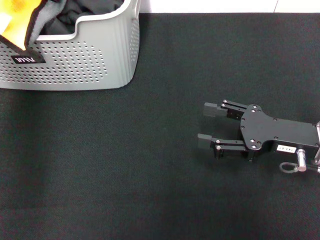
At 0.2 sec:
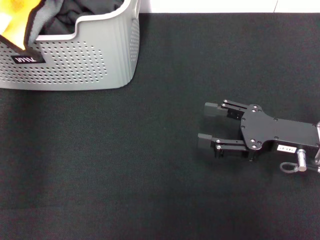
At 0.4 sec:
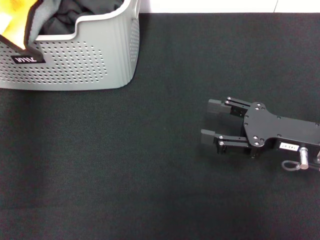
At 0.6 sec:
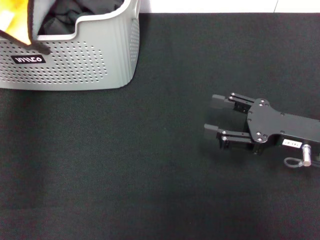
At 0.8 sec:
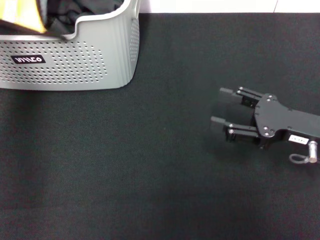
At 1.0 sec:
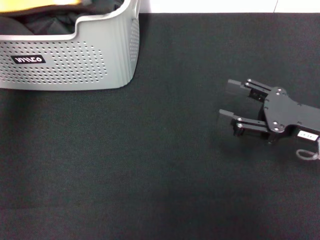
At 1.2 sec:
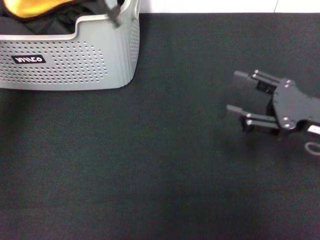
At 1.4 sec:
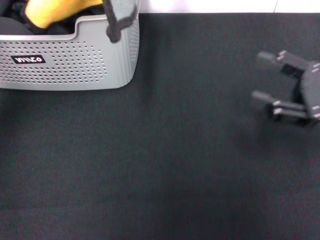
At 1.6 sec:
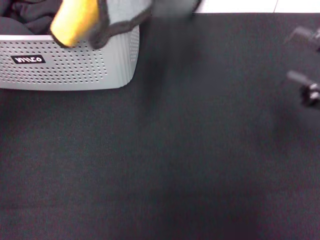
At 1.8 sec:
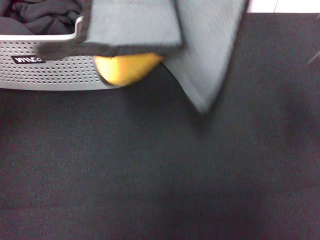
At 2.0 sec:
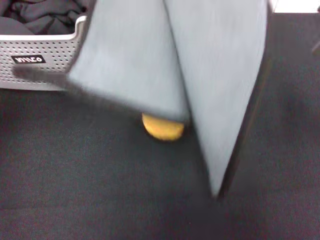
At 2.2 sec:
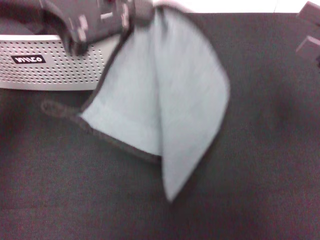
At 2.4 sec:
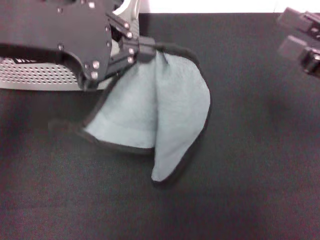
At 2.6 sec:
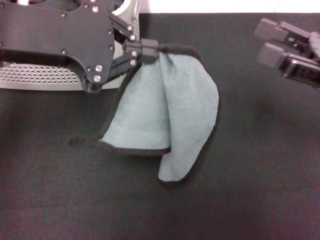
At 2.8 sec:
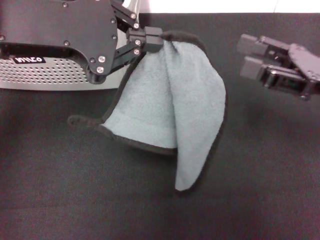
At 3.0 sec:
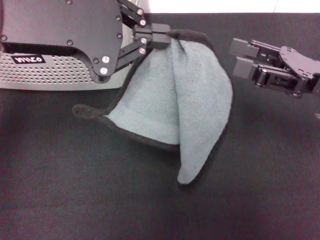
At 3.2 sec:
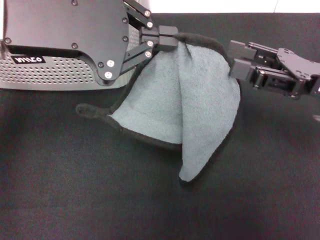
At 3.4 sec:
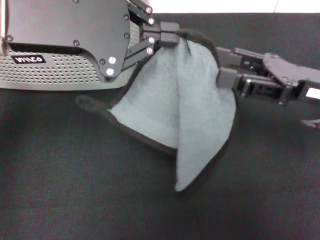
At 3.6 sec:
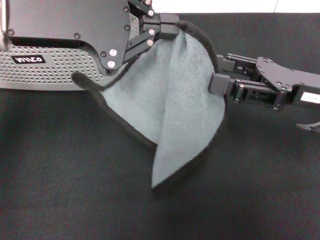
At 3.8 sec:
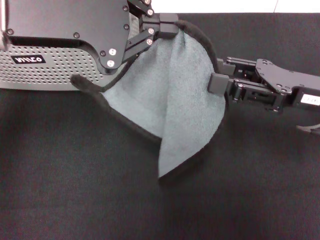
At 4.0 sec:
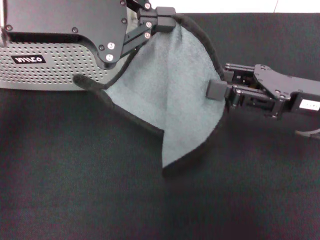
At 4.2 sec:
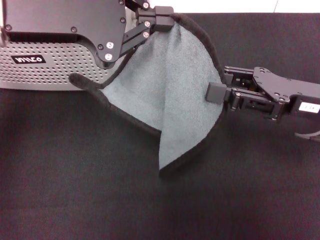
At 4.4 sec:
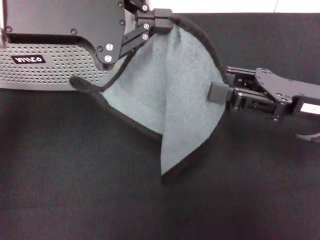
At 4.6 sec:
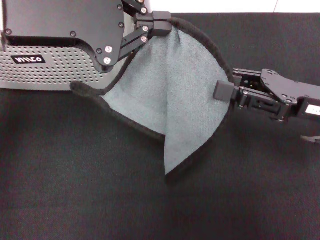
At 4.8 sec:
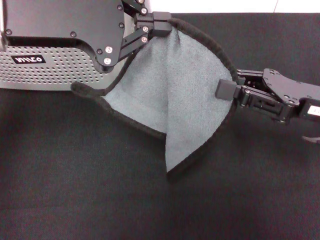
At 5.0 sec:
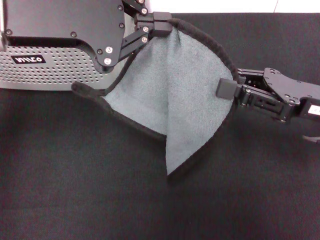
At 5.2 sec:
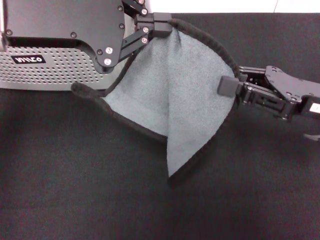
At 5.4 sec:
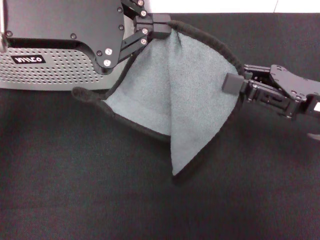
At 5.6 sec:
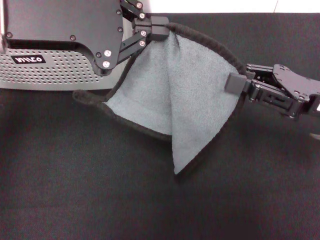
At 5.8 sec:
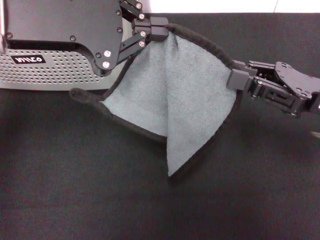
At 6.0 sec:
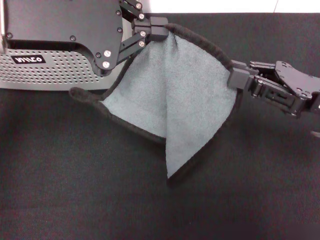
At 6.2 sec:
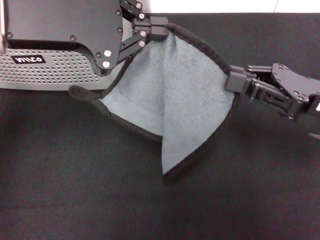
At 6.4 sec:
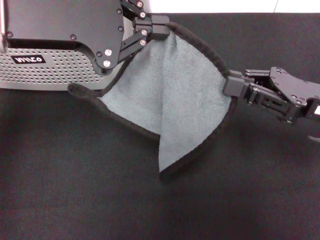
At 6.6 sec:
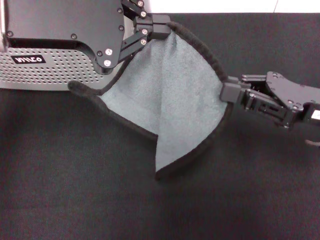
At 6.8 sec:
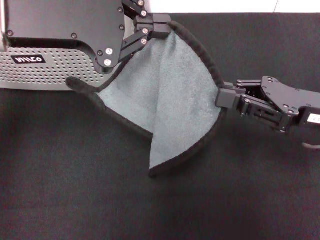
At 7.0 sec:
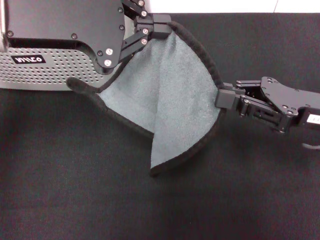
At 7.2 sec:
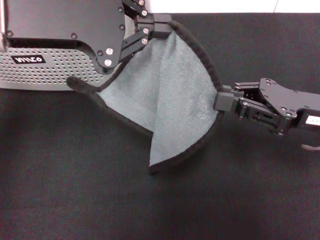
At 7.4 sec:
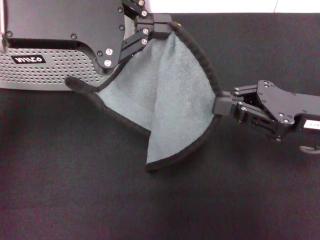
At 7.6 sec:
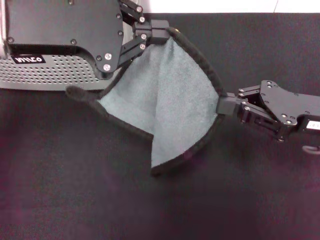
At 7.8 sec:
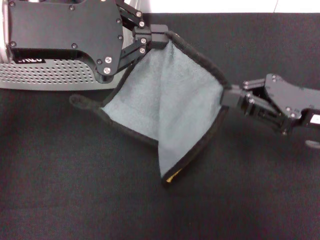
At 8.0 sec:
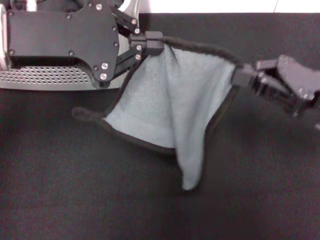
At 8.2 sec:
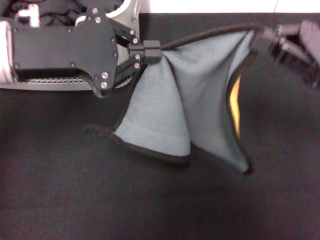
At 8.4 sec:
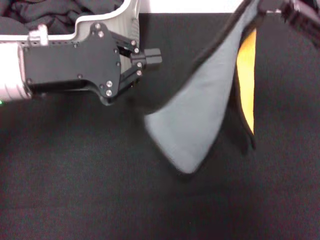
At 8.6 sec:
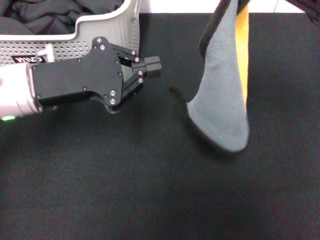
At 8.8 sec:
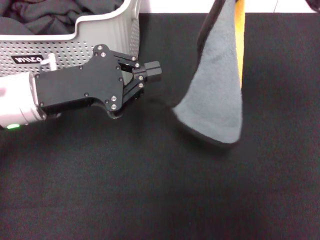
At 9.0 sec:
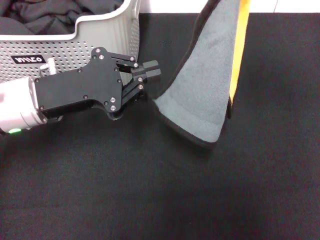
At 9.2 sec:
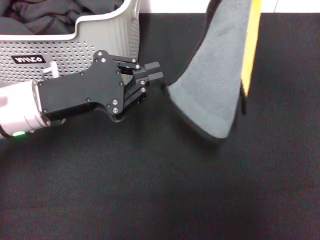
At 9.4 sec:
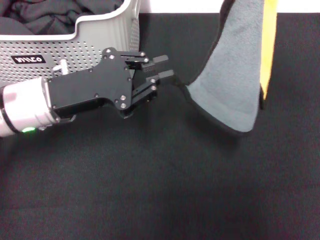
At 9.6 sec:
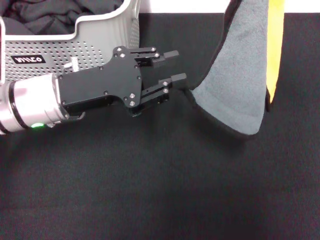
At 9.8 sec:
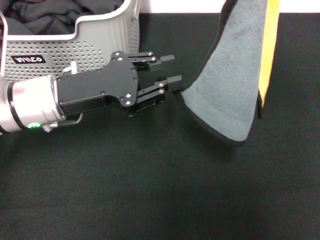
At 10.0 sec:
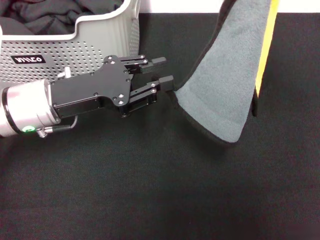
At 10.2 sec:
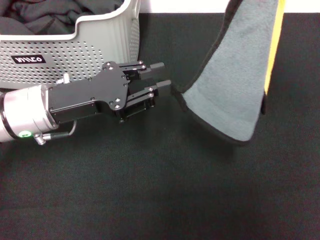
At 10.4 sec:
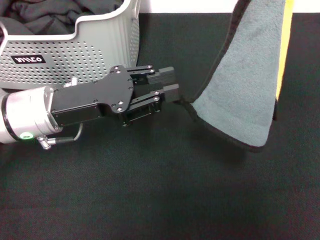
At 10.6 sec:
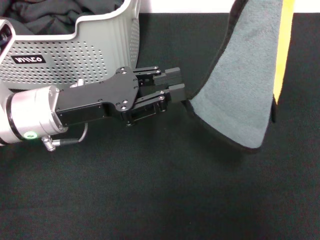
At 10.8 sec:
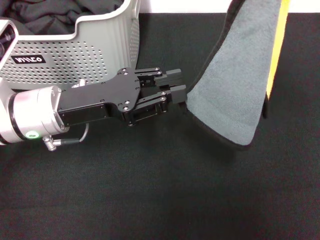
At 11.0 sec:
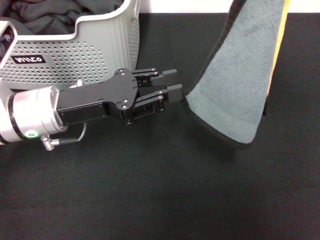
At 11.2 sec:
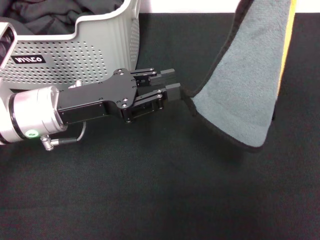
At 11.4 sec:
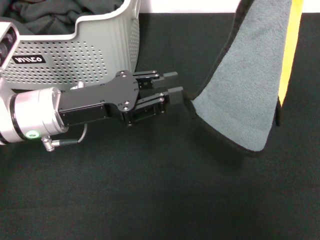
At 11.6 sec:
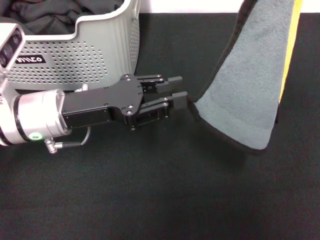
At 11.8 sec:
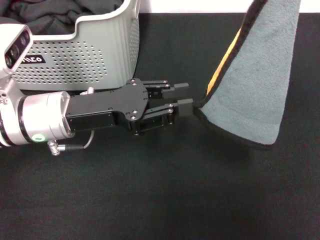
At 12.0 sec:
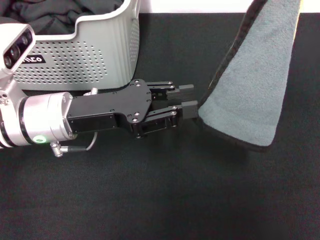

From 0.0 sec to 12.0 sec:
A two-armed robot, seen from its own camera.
Task of the whole recording: pick up the towel from the storage box and lay it flat on the black tablecloth.
Step, from 0.4 sec to 7.4 sec: Spread the towel flat with the left gripper.
From 0.0 sec to 1.6 sec: The left gripper is displaced backward and upward by roughly 20 cm, and closes its fingers. Meanwhile the right gripper moves to the right and upward, some 10 cm.
From 1.6 sec to 3.0 sec: The right gripper travels to the left by approximately 5 cm. Meanwhile the left gripper goes about 10 cm downward.
From 3.0 sec to 4.4 sec: The right gripper closes its fingers.
From 4.4 sec to 7.6 sec: The grippers stay close to where they were, moving slightly.
From 7.6 sec to 9.0 sec: The right gripper shifts roughly 15 cm upward and forward, while the left gripper is displaced downward by some 15 cm.
From 9.0 sec to 10.4 sec: The left gripper opens up.
From 10.4 sec to 12.0 sec: There are only small adjustments of the grippers.

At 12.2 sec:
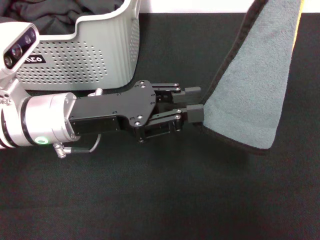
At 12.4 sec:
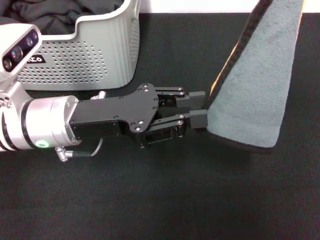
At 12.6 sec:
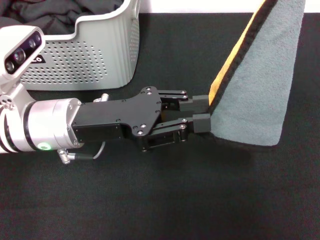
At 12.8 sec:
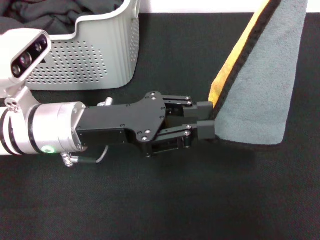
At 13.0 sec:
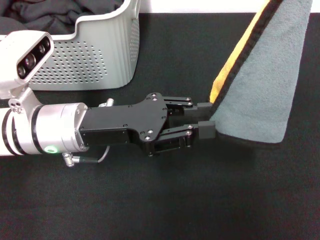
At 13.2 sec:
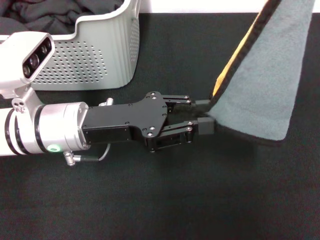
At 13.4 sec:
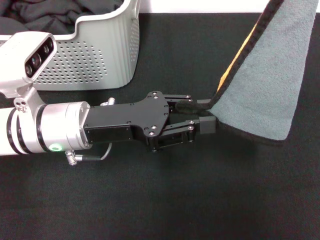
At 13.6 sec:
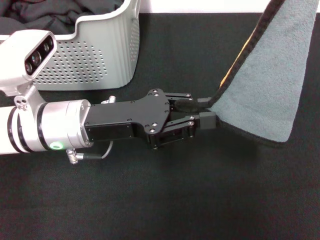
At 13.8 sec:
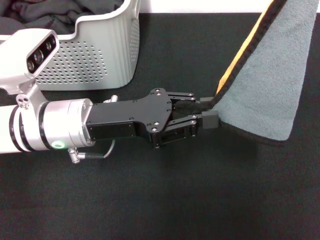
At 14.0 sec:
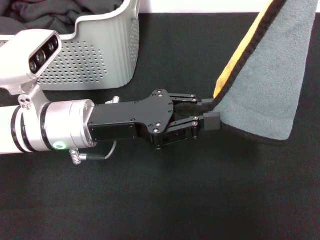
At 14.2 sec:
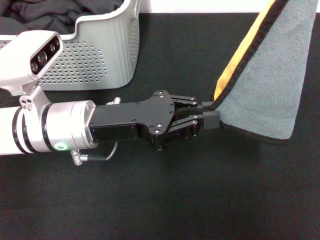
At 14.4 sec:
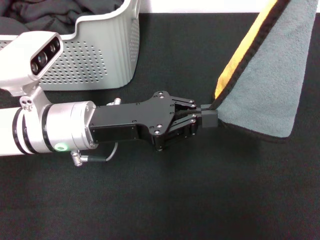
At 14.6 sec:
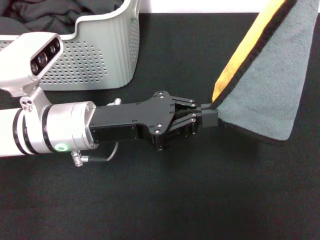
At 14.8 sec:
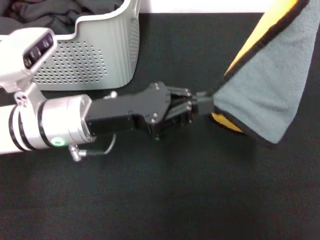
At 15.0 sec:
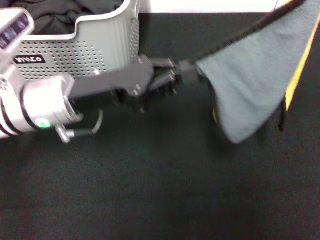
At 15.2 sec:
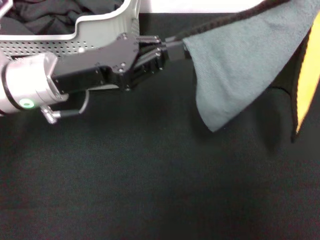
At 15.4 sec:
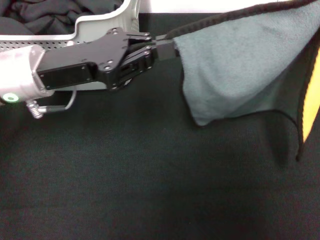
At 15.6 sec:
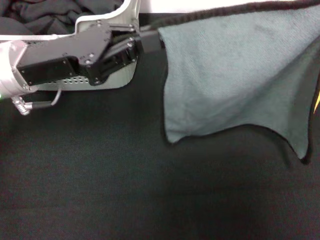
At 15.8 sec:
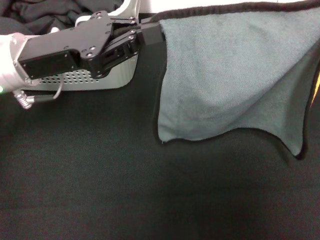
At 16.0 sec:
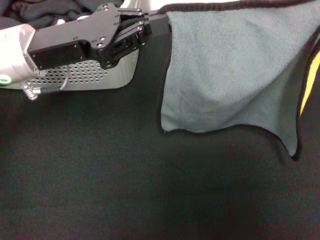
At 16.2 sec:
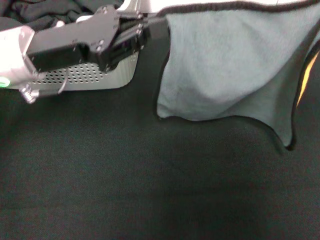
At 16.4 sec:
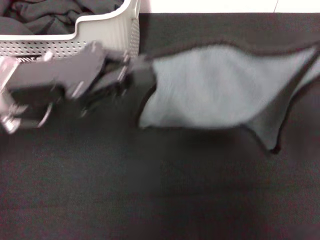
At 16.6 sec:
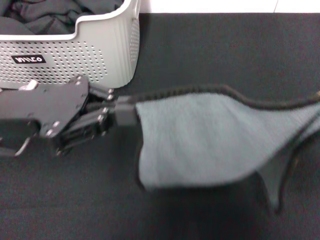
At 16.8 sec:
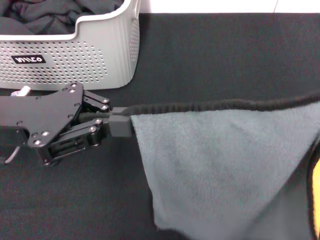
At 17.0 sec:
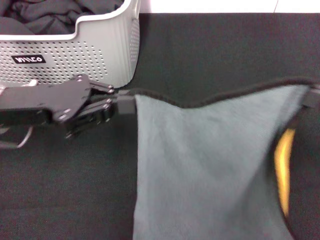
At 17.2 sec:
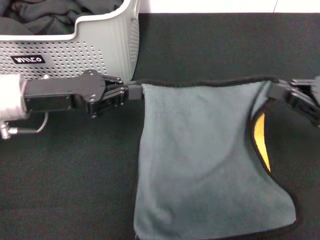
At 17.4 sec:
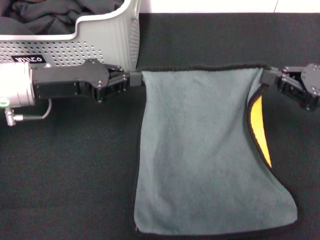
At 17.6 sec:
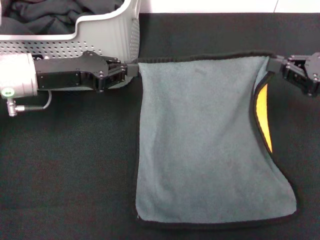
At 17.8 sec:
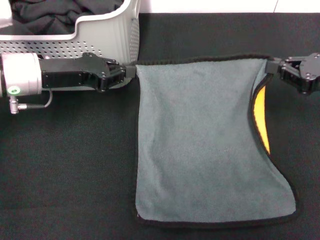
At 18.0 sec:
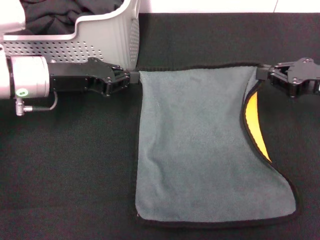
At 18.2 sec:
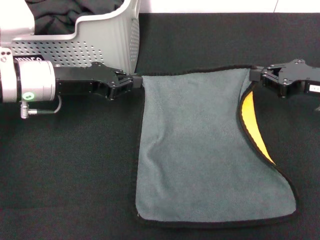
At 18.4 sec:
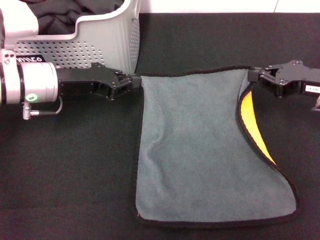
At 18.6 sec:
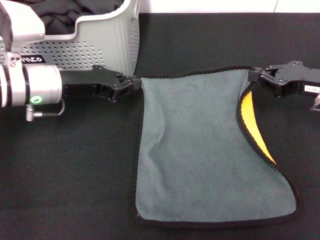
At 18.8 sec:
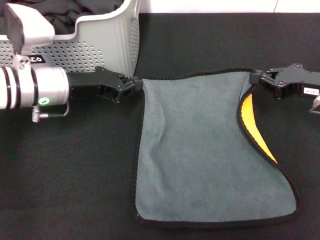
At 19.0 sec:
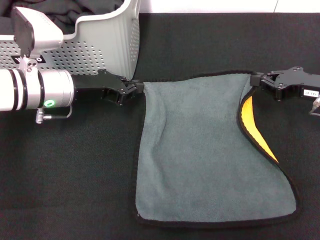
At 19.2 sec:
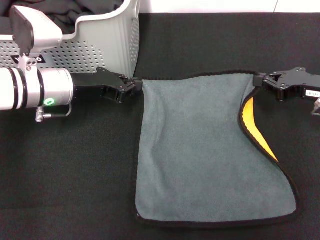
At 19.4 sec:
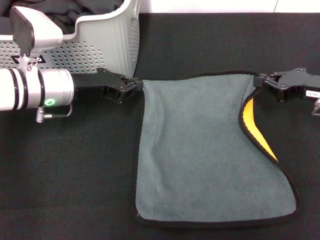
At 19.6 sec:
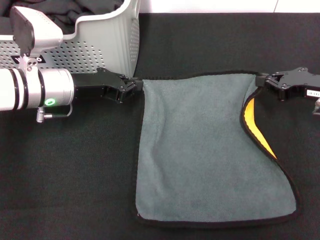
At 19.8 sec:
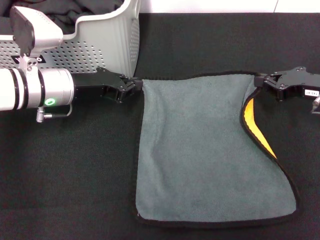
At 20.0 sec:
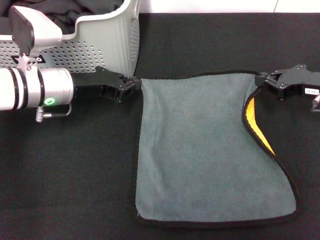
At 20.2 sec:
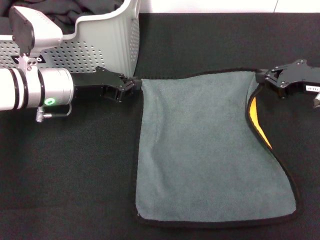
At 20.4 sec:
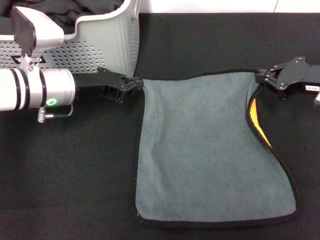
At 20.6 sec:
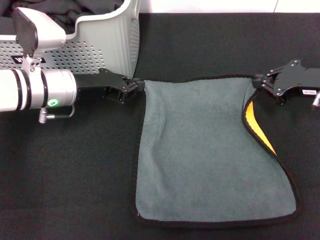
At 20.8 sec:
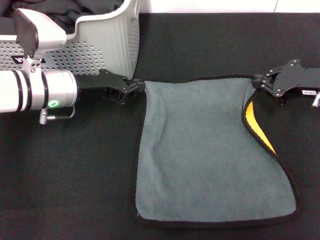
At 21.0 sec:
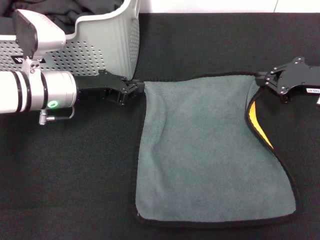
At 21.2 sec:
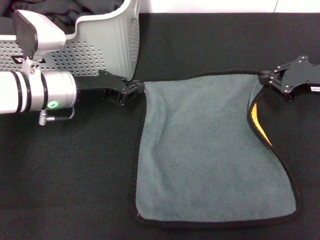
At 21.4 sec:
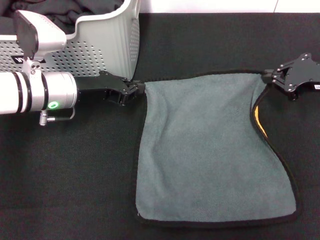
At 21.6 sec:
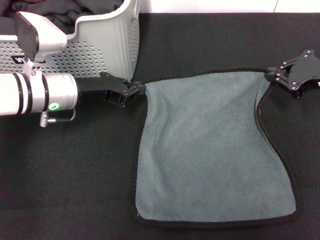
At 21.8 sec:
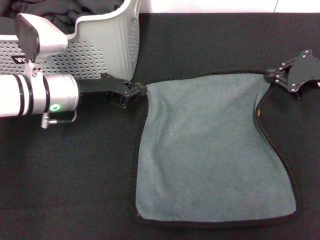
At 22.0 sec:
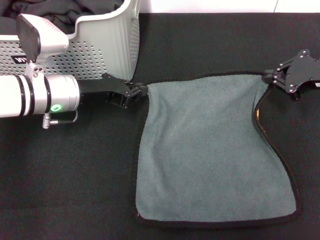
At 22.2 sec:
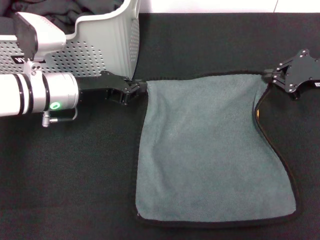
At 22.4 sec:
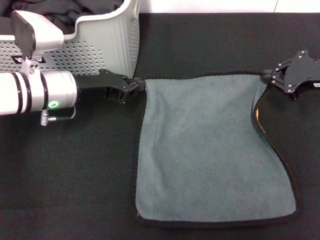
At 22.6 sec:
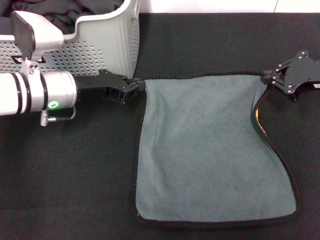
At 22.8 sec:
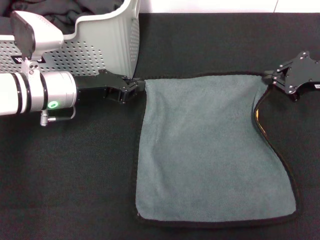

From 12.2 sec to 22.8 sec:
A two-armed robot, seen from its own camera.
Task of the whole recording: pick up the towel from the storage box and lay it flat on the black tablecloth.
From 13.8 sec to 15.2 sec: The left gripper changes place by about 5 cm.
From 15.2 sec to 16.8 sec: The right gripper heads backward, covering roughly 10 cm. The left gripper shifts roughly 10 cm backward and to the left.
From 16.8 sec to 18.2 sec: The left gripper heads forward and downward, covering some 10 cm; the right gripper is displaced forward and downward by roughly 20 cm.
From 18.2 sec to 19.8 sec: There are only small adjustments of the grippers.
From 21.2 sec to 22.8 sec: The grippers make only small movements.
